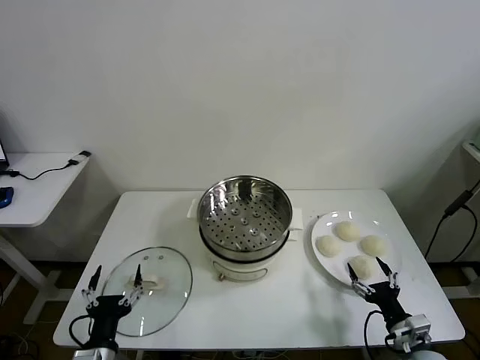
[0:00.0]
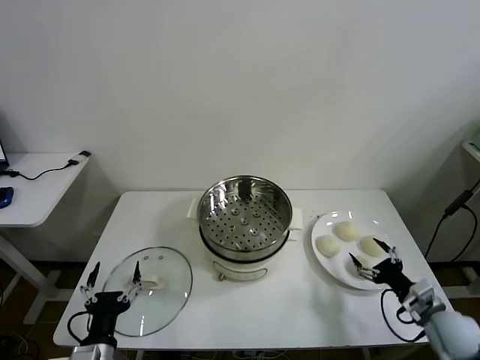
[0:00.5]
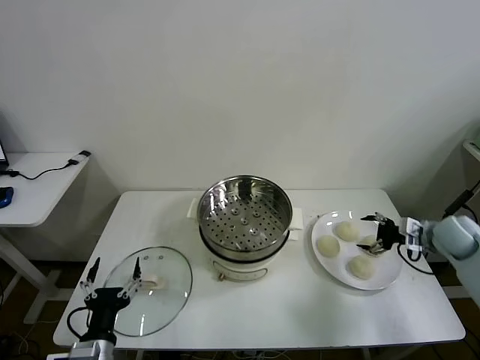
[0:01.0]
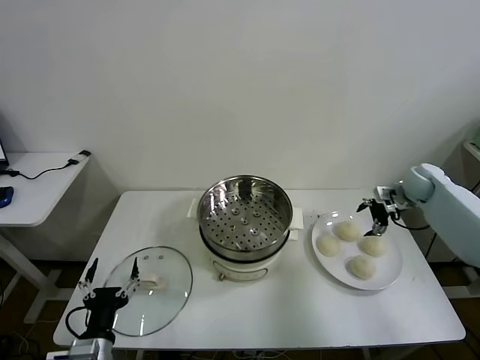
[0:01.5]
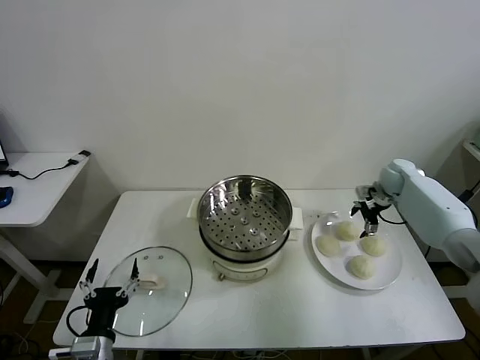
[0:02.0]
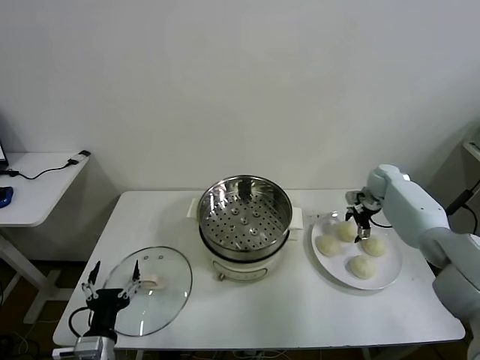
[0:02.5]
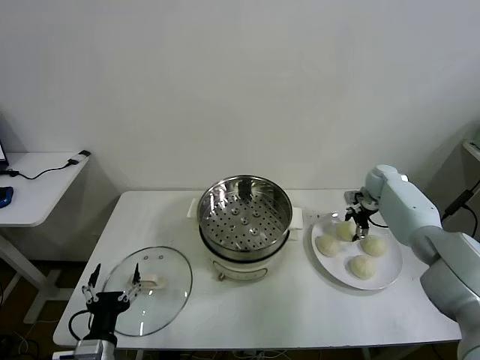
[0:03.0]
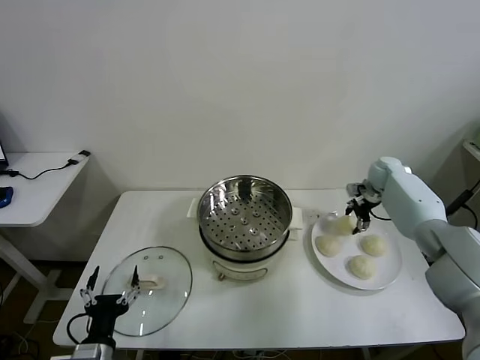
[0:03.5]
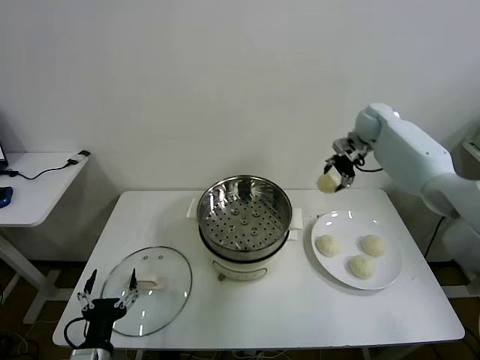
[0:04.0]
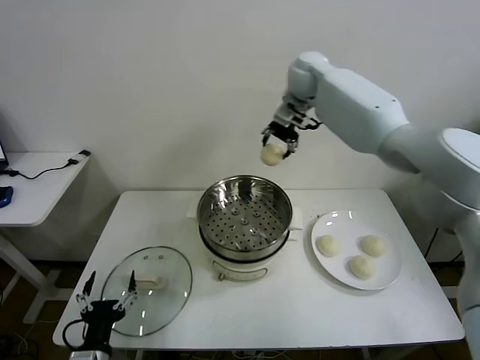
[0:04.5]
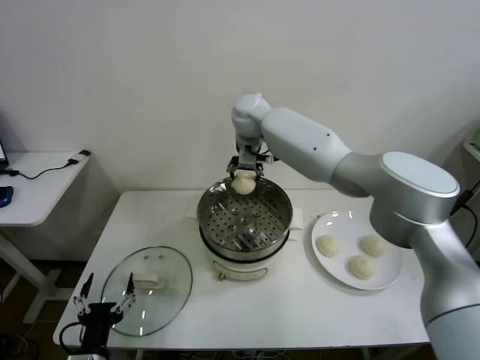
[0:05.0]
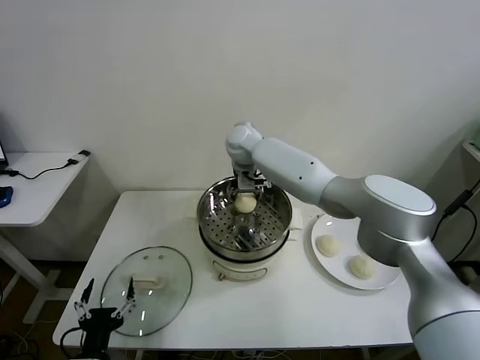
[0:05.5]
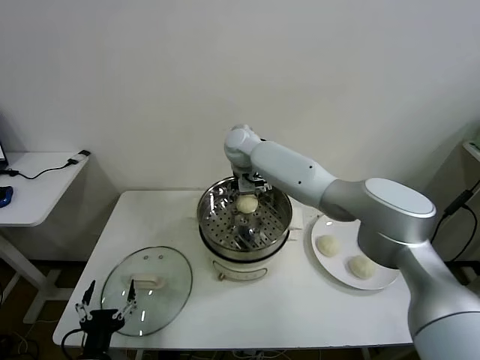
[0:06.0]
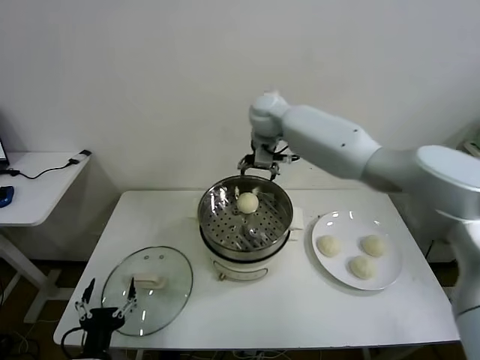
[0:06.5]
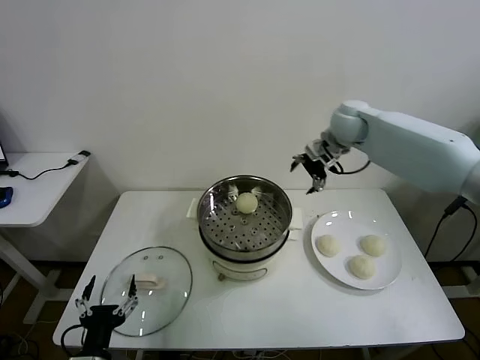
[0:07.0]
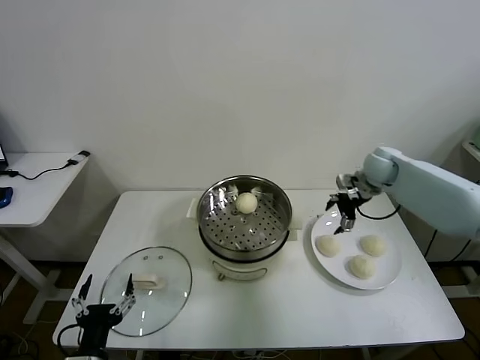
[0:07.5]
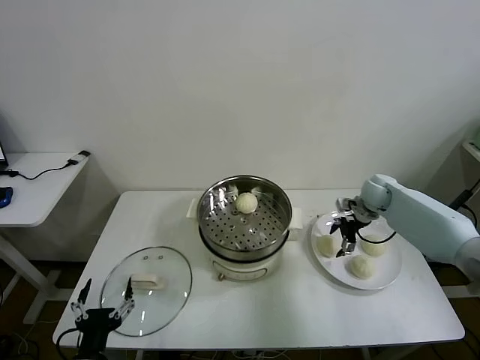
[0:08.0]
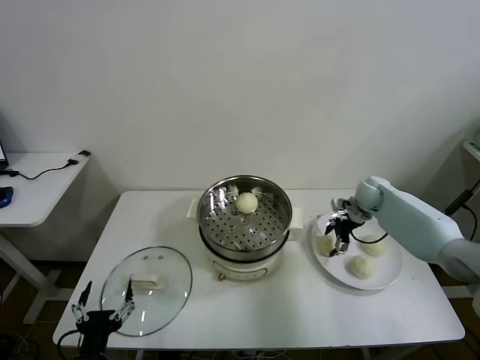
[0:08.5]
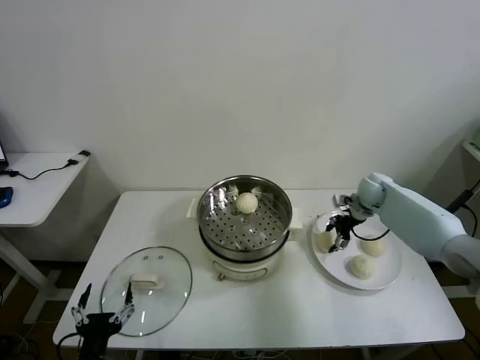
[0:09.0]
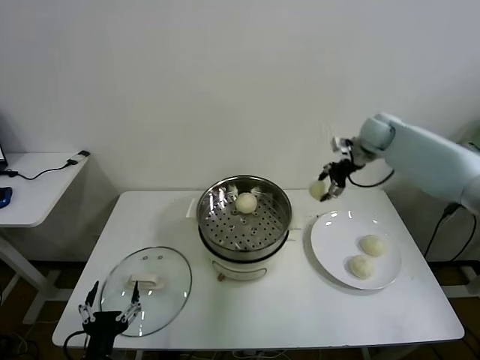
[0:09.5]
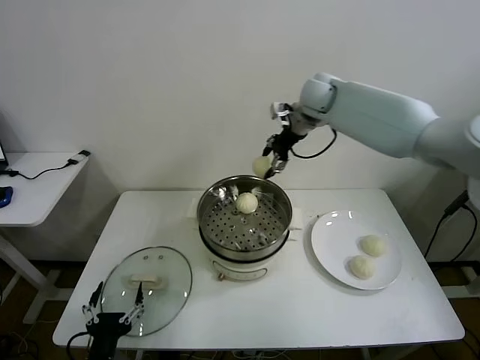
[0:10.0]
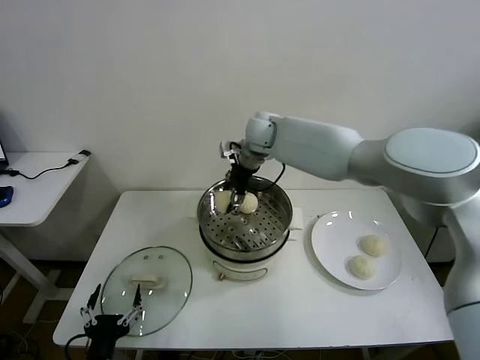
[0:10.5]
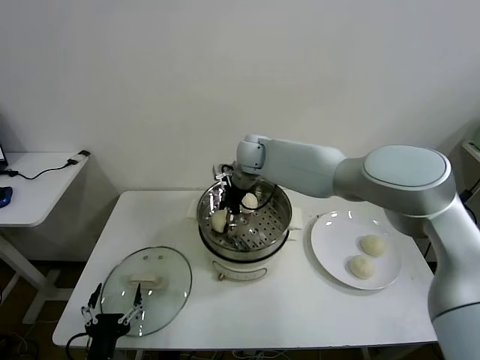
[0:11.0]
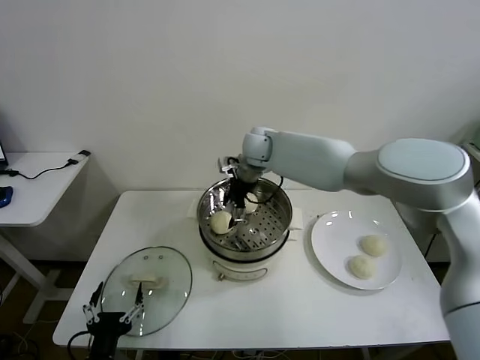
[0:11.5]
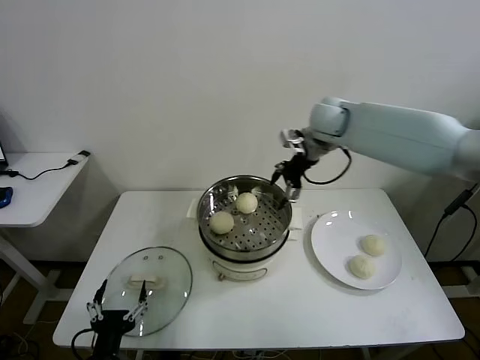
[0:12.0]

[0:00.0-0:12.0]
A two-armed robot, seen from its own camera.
Task of the whole recording: take steamed baozi put them in steamer then cover it.
Step, 0:00.0 to 0:03.0: Grasp the baozi in the plate with right gripper.
Step, 0:03.5 to 0:05.5: Place the baozi on the steamer with right gripper.
Step, 0:06.0 to 0:08.5: Grasp the baozi in the plate with right gripper.
Step, 0:09.5 to 0:11.5: Place the baozi on the steamer with right gripper.
0:02.0 to 0:04.0: The right gripper moves upward and to the left, roughly 25 cm.
0:04.0 to 0:06.0: The right gripper moves to the left, about 30 cm.
0:06.0 to 0:08.0: The right gripper travels to the right by approximately 35 cm.
0:08.0 to 0:10.0: The right gripper heads upward and to the left, covering about 35 cm.
0:10.0 to 0:12.0: The right gripper shifts approximately 10 cm to the right and backward.

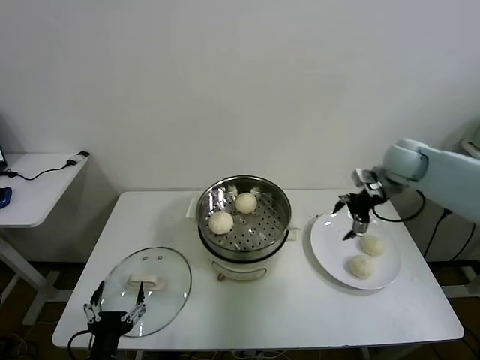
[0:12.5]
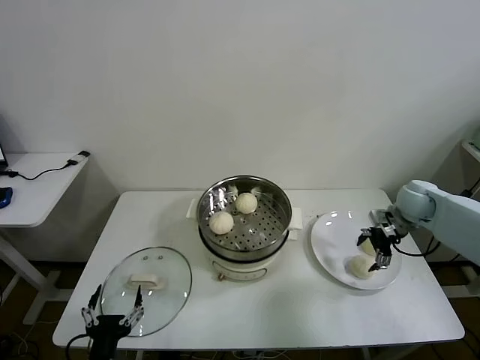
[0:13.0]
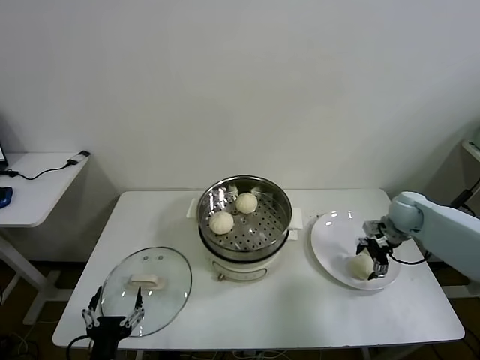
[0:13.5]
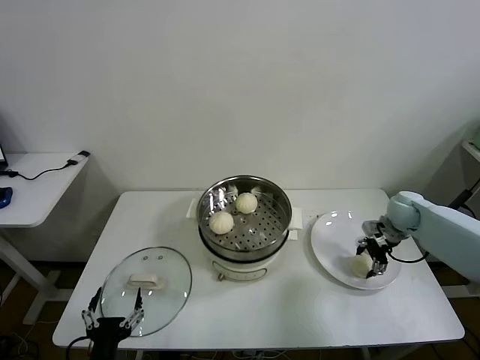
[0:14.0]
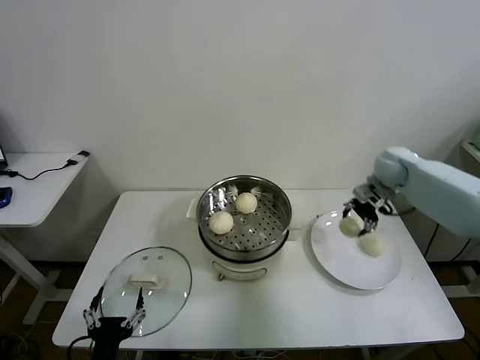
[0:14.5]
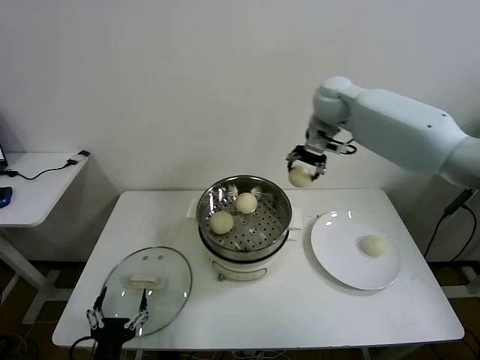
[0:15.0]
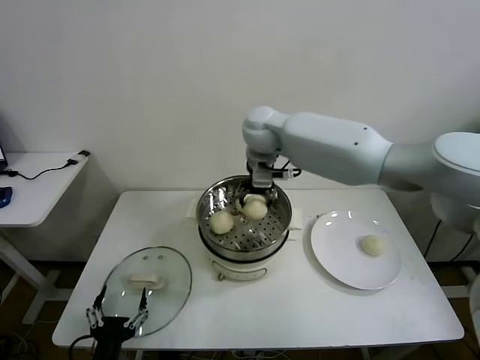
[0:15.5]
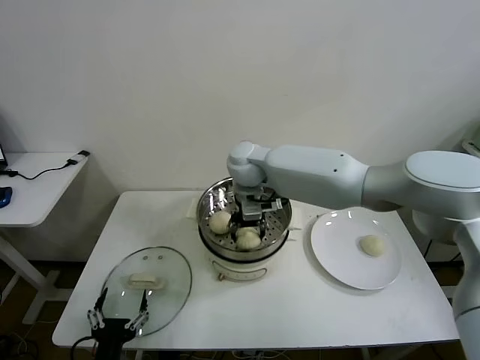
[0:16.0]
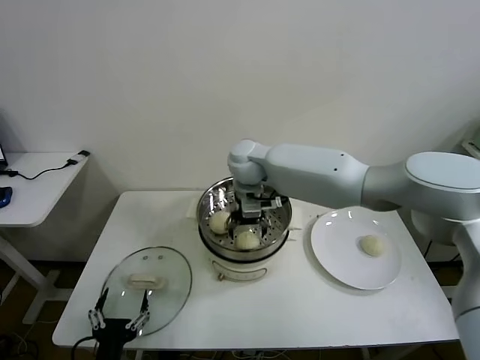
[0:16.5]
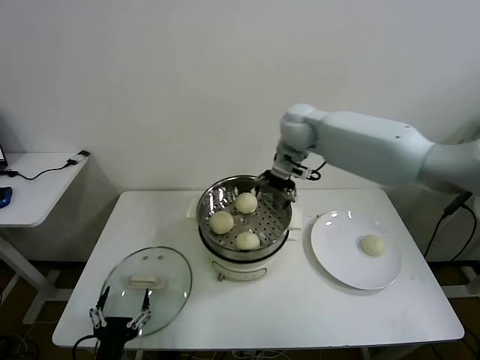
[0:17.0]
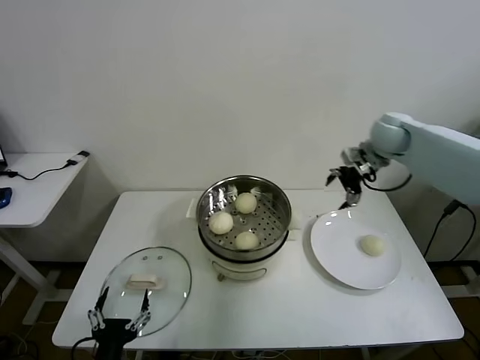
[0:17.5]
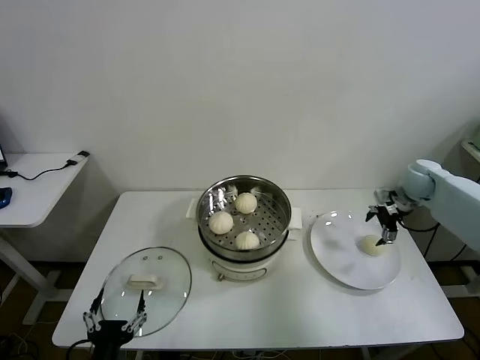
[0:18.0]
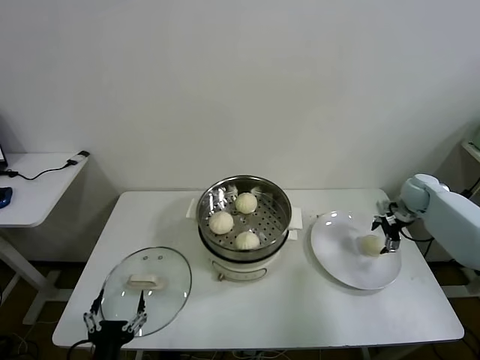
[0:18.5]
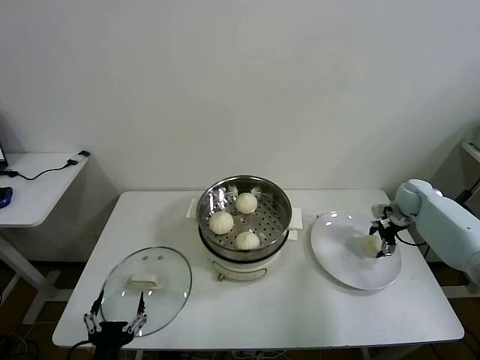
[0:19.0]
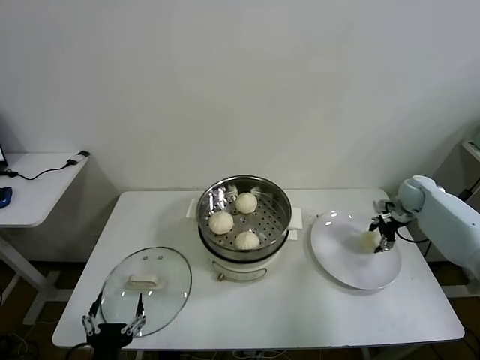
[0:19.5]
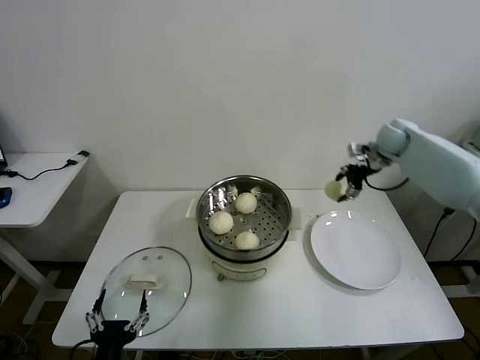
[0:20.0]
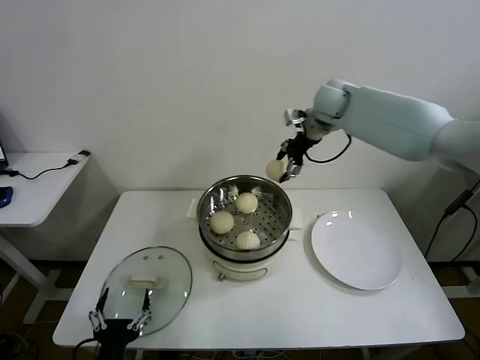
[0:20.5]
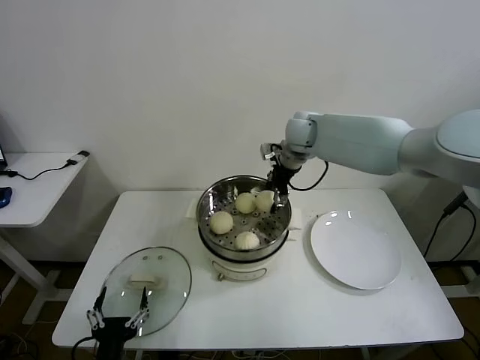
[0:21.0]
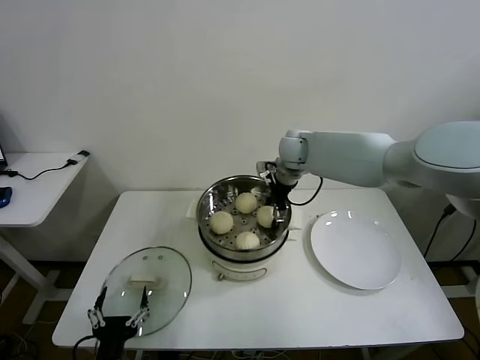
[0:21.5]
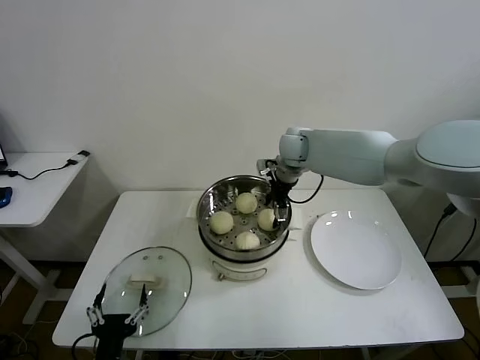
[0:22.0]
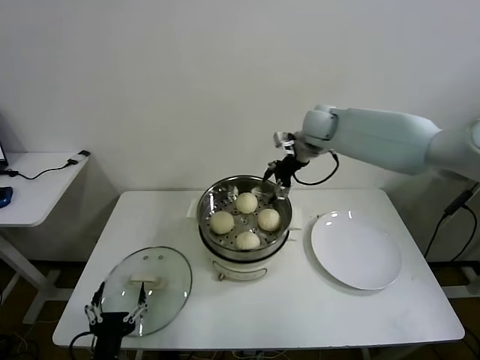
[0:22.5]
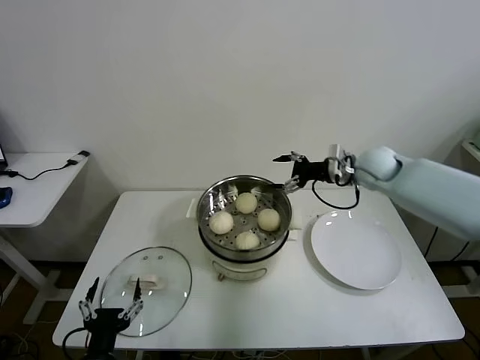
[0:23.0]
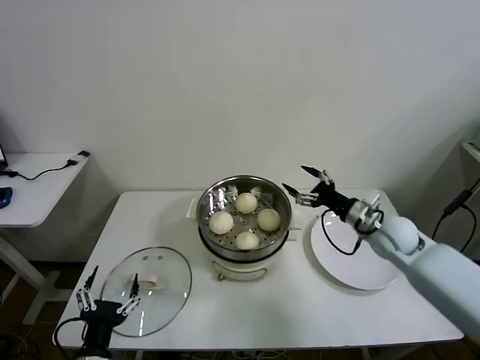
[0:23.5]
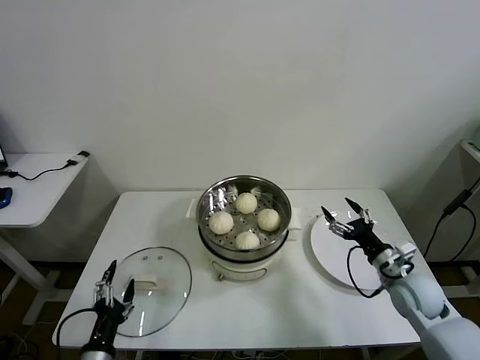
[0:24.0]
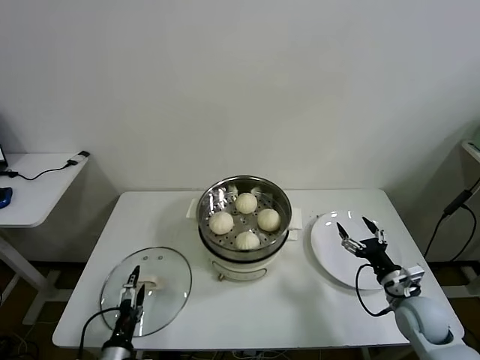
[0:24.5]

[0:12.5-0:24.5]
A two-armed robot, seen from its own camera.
Task of the whole recording: take steamed baozi put them in steamer then cover it.
Step, 0:12.5 to 0:14.0: Grasp the baozi in the plate with right gripper.
Step, 0:14.5 to 0:16.5: Place the baozi on the steamer with right gripper.
Step, 0:17.0 to 0:19.0: Grasp the baozi in the plate with right gripper.
Step, 0:19.5 to 0:22.0: Place the baozi on the steamer with right gripper.
0:12.5 to 0:14.5: The right gripper shifts roughly 5 cm forward, and travels downward and back again, roughly 15 cm each way.
0:14.5 to 0:16.5: The right gripper heads to the left, covering roughly 35 cm.
0:16.5 to 0:18.5: The right gripper is displaced to the right by roughly 50 cm.
0:18.5 to 0:20.5: The right gripper is displaced to the left and upward by about 35 cm.
0:22.5 to 0:24.5: The left gripper is displaced downward by about 10 cm. Meanwhile the right gripper goes some 50 cm backward, downward and to the right.

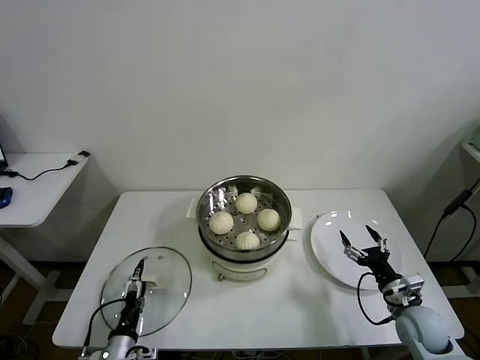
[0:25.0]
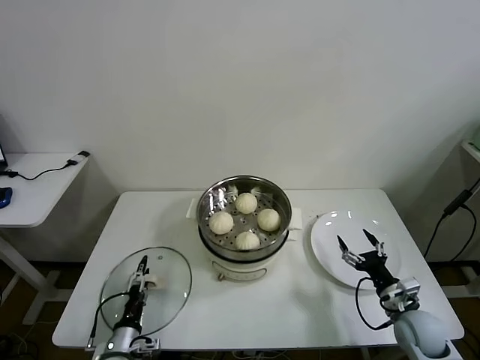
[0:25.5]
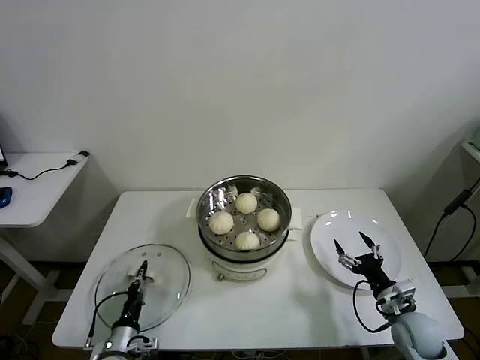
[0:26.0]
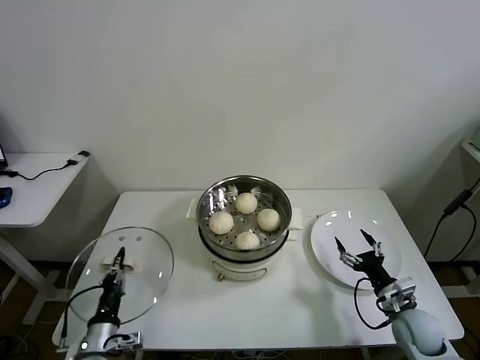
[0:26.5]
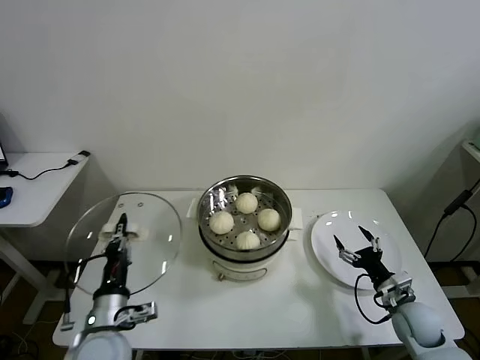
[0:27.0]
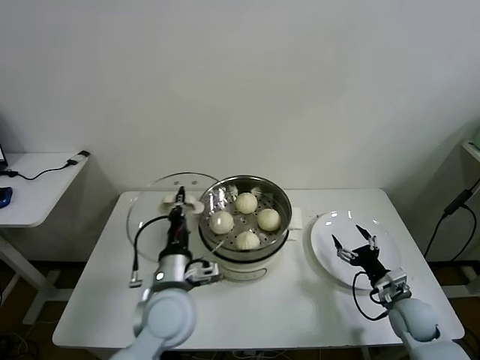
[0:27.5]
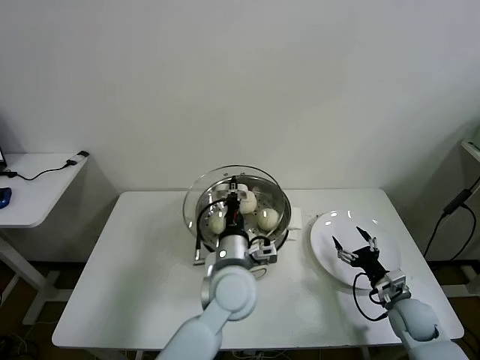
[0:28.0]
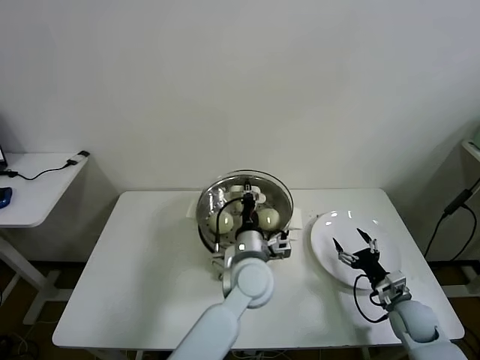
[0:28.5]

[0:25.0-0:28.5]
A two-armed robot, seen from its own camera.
Task of the whole recording: take steamed baozi put them in steamer then cover it.
0:25.0 to 0:27.0: The left gripper moves upward, approximately 15 cm, and closes.
0:27.0 to 0:28.5: The left gripper heads to the right and forward, covering approximately 30 cm.
